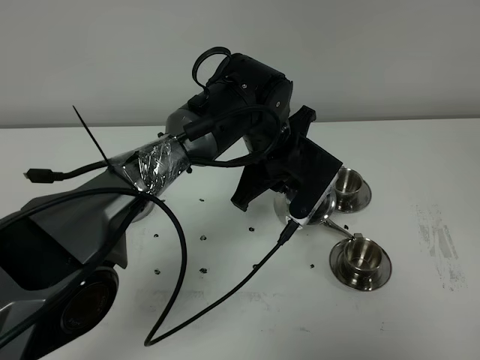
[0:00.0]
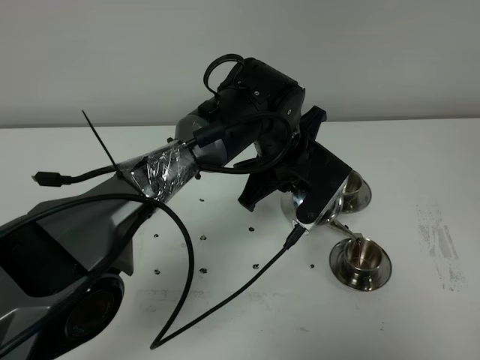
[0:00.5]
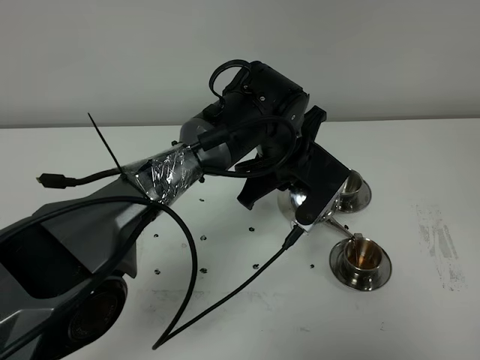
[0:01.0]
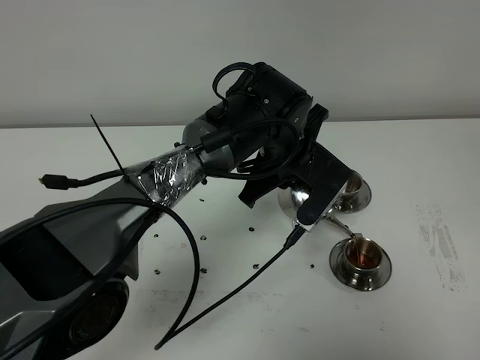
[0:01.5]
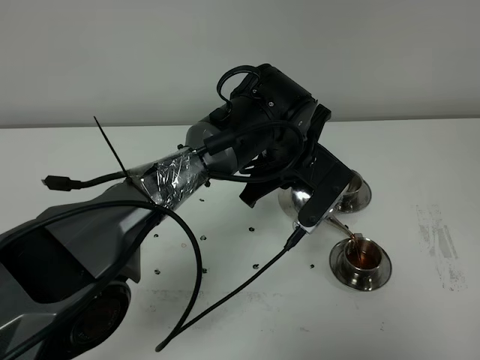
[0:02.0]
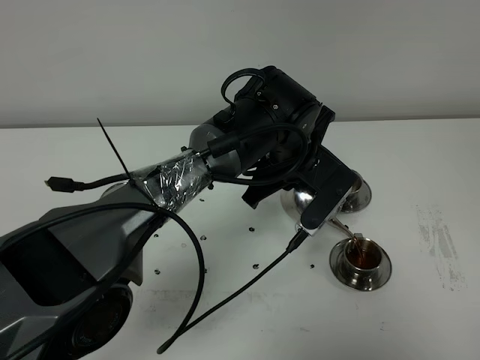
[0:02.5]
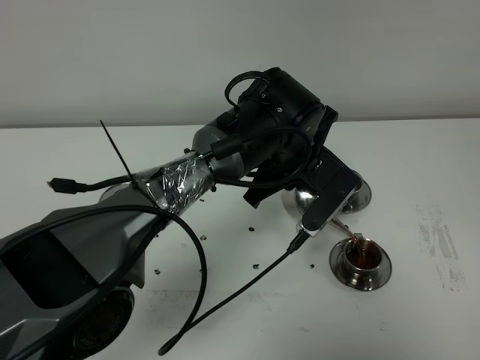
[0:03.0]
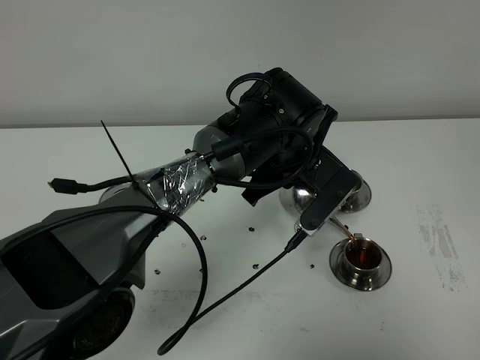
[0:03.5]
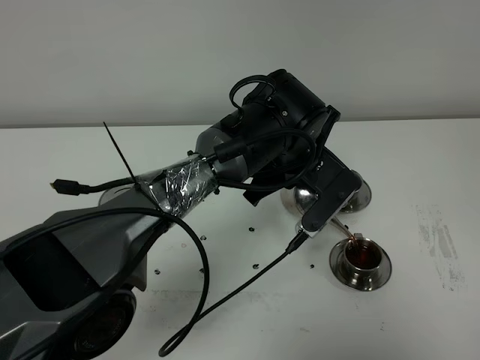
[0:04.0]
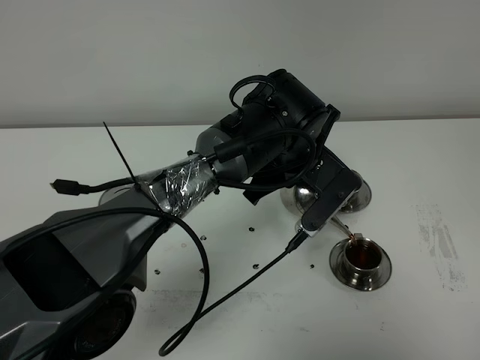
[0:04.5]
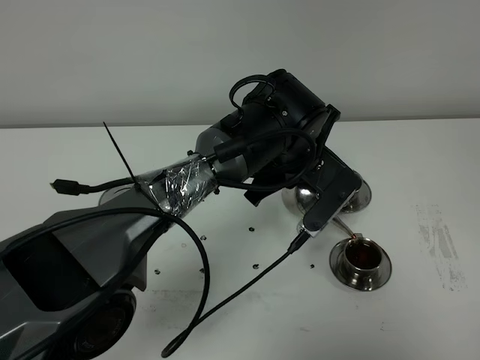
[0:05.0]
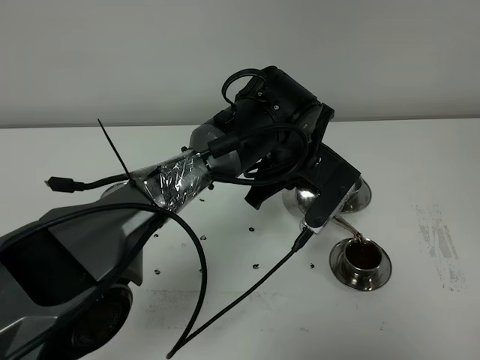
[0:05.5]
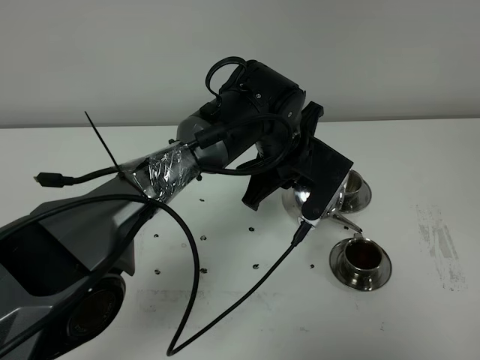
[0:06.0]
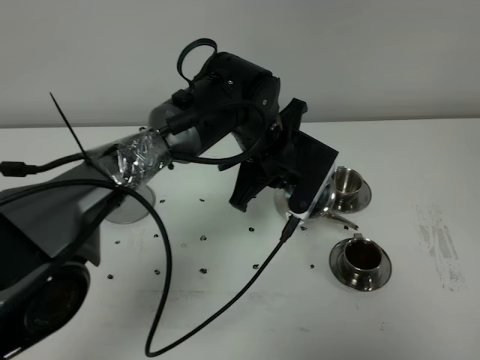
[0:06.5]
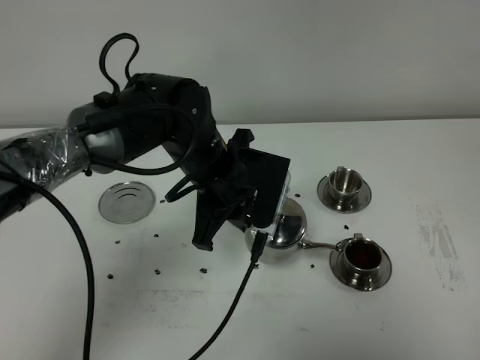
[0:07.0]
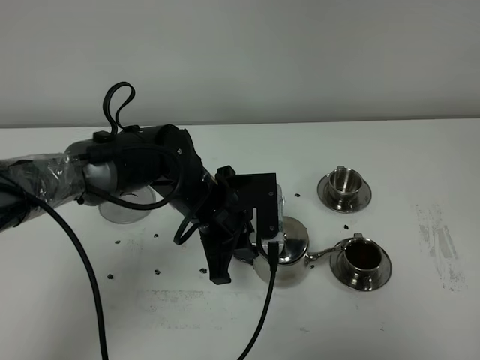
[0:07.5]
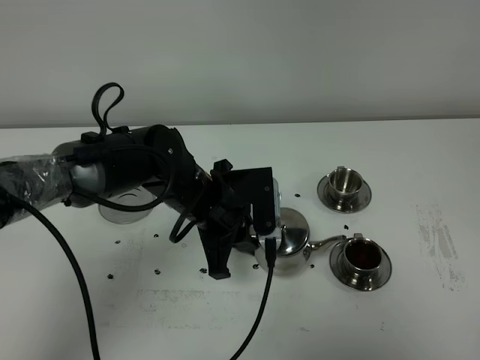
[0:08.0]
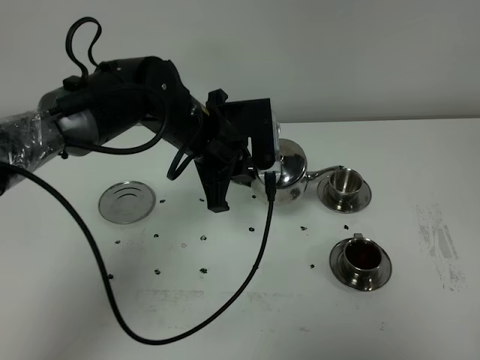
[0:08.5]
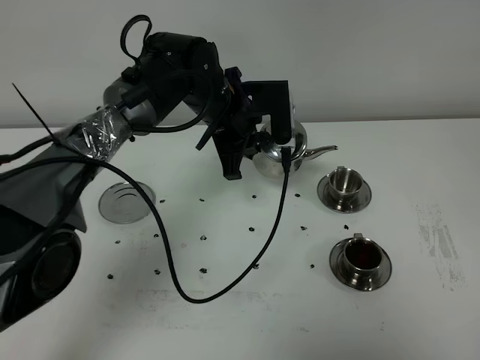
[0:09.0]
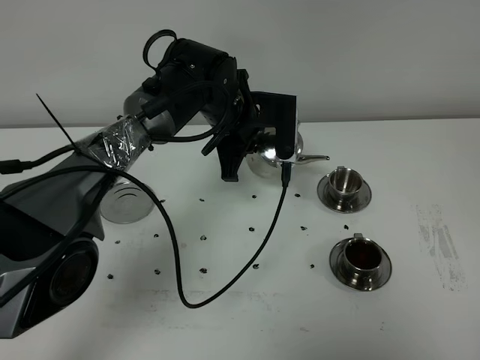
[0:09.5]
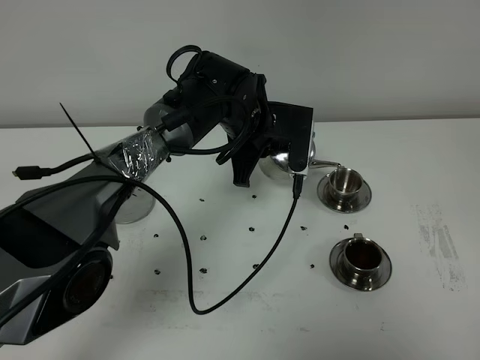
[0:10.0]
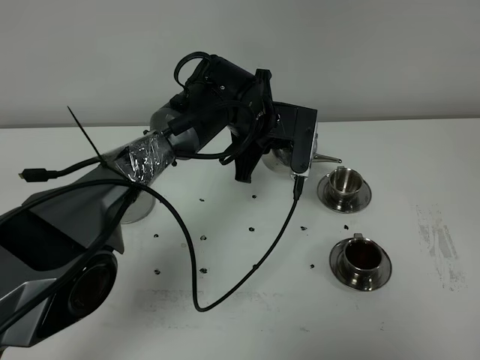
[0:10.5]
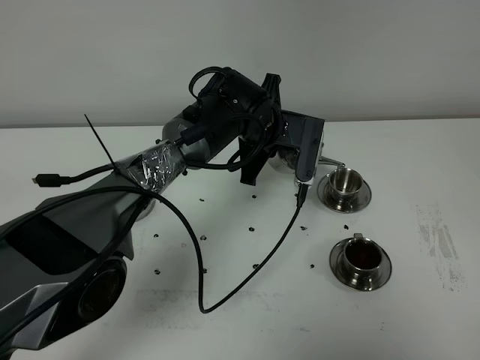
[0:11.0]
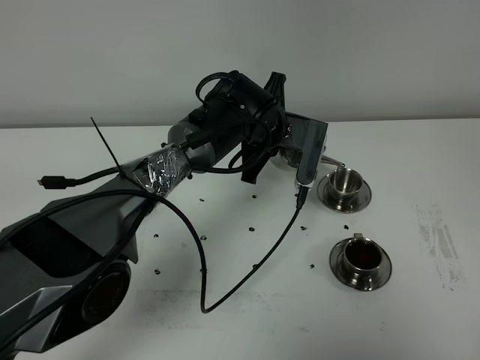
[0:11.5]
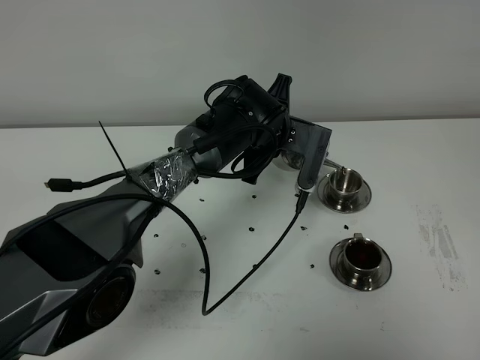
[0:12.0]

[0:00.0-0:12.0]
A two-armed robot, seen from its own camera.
Task of the whole recording: grasp the stainless steel teapot and pour the tea into the two stainless steel teacups one by one, put the stainless steel teapot back in its original place.
0:00.0 to 0:02.0: The grippers stay close to where they were, moving slightly.
0:02.0 to 0:04.0: Neither gripper changes place.
0:04.0 to 0:06.0: The grippers make only small movements.
0:06.0 to 0:08.0: The left gripper shifts approximately 10 cm to the left and backward.
0:08.0 to 0:10.0: The left gripper travels forward and to the right by approximately 10 cm.

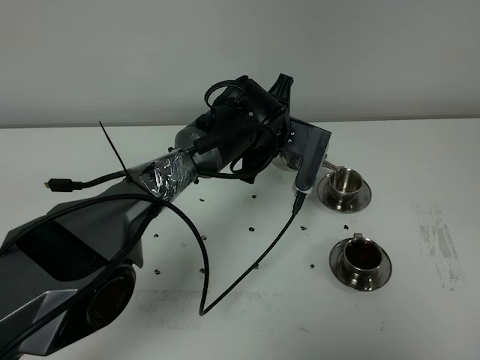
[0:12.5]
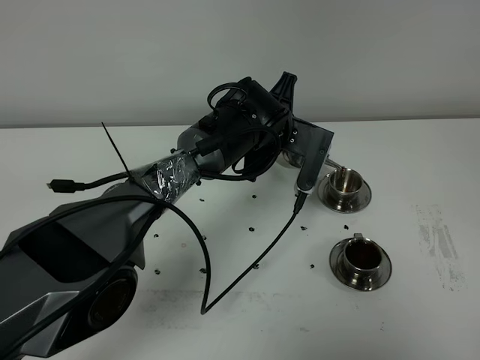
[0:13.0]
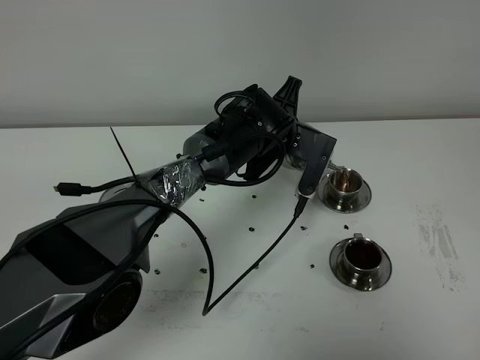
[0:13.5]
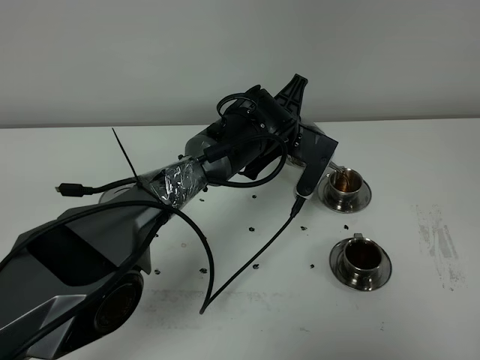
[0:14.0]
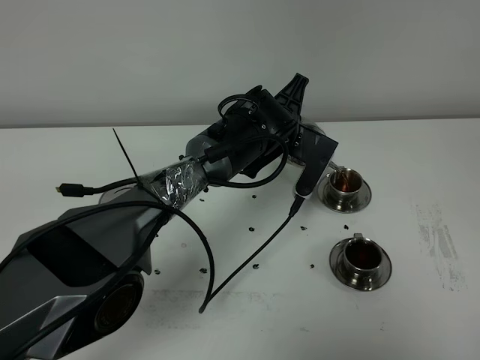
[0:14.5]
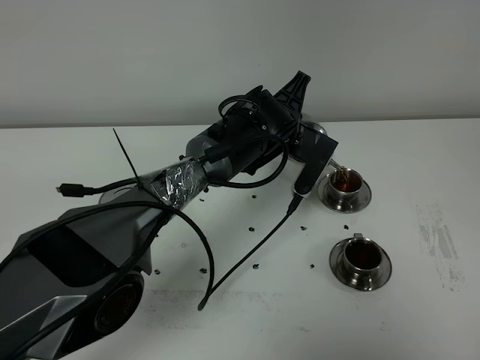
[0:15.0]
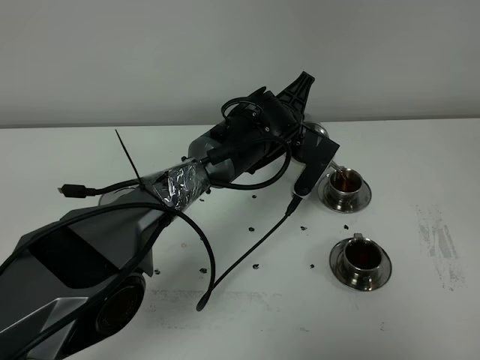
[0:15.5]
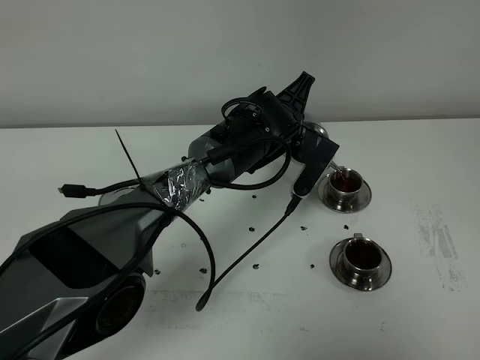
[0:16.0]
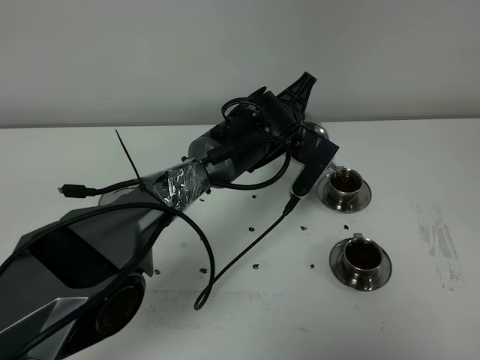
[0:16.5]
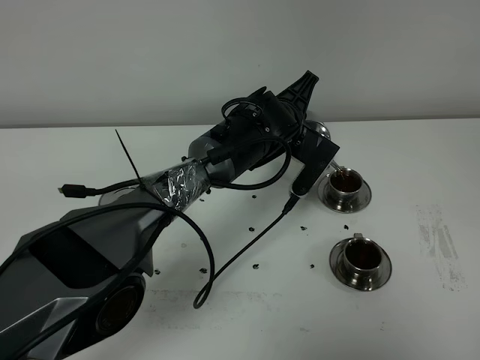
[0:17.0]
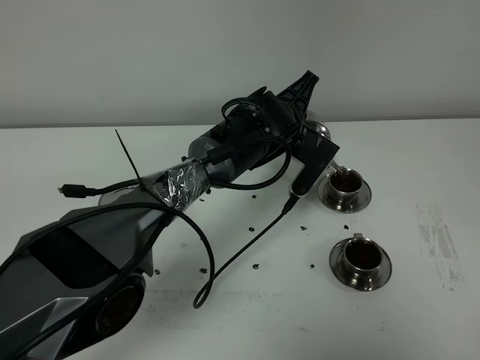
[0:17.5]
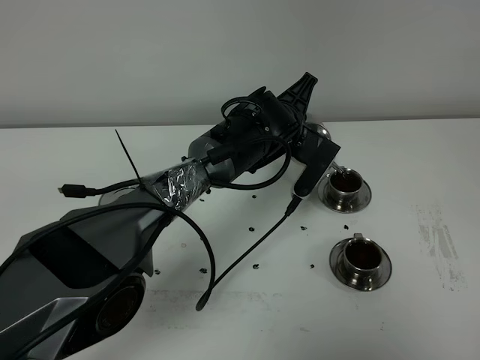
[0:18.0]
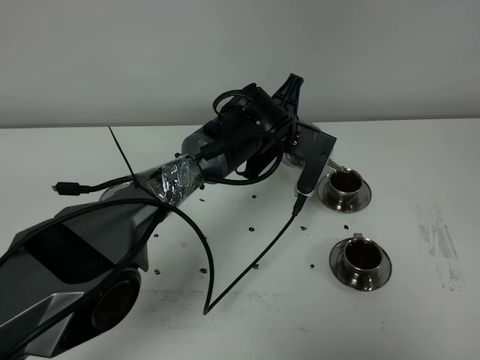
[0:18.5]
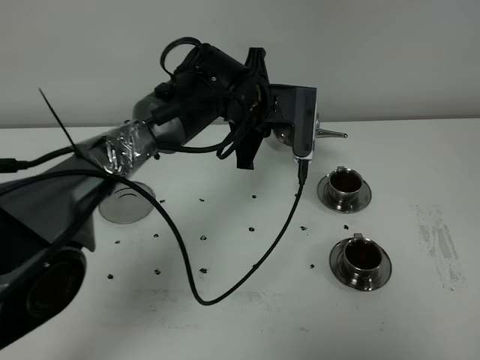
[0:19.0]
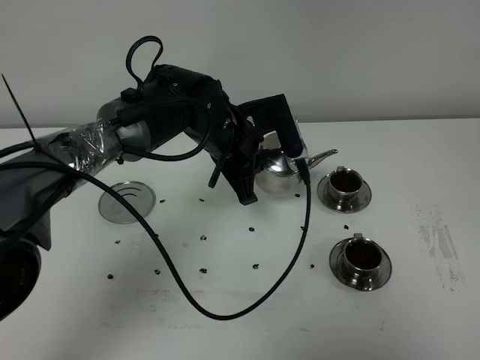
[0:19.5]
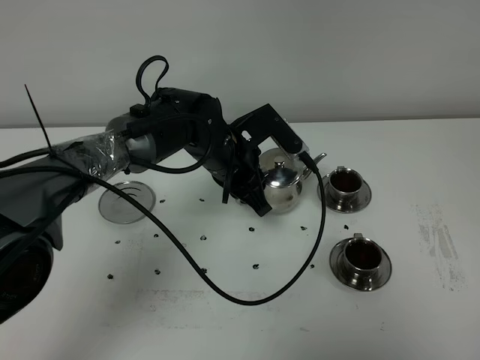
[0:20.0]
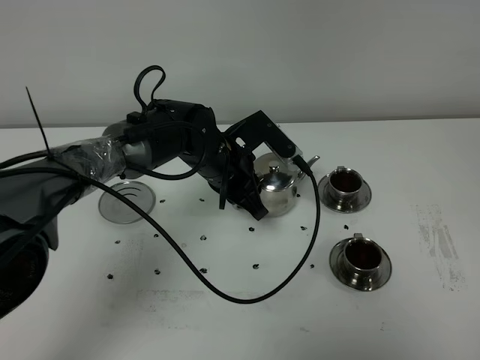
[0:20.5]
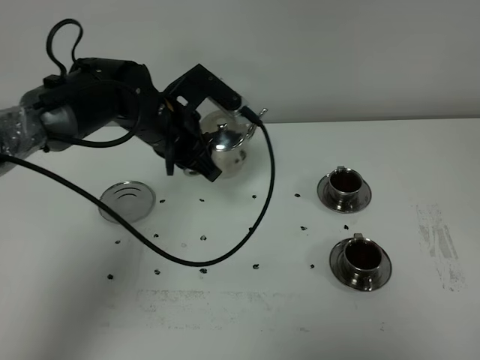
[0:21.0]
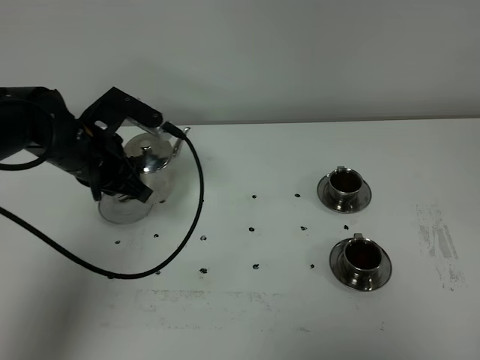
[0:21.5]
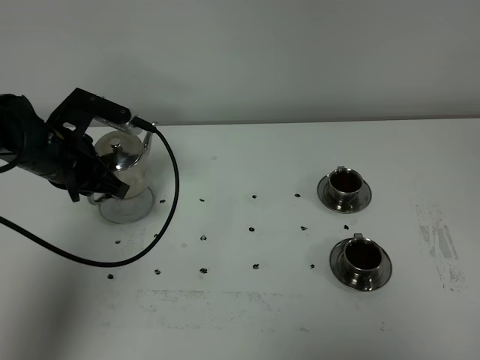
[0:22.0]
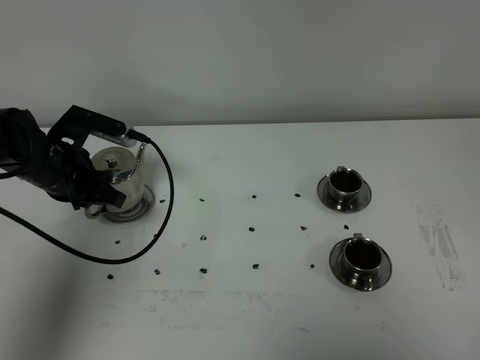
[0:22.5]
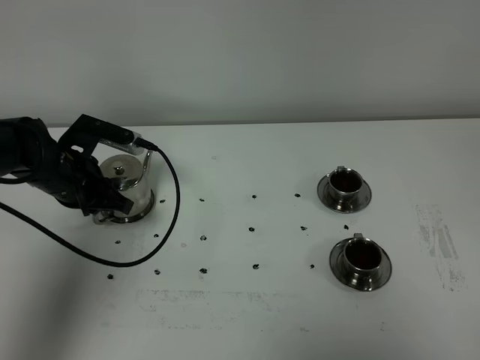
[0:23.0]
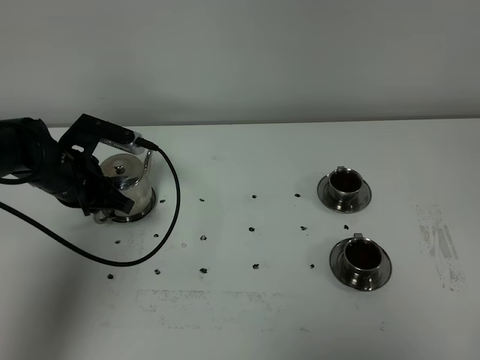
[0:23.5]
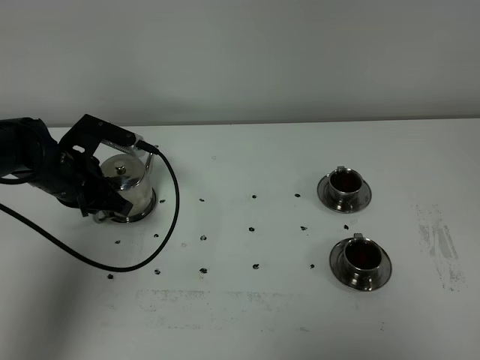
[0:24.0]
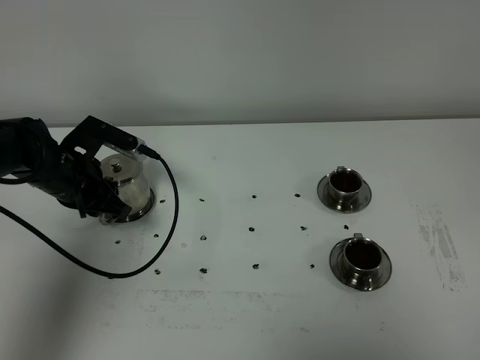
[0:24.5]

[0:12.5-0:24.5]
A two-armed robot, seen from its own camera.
Task of the whole recording: grasp the stainless steel teapot and pour the tea into the two stainless steel teacups one by one, put the stainless steel teapot back in its original place.
Step, 0:12.5 to 0:18.5: Pour tea into the teacup with the left gripper.
0:12.5 to 0:18.5: The grippers make only small movements.
0:18.5 to 0:20.5: The left gripper heads to the left, covering some 10 cm.
0:20.5 to 0:22.5: The left gripper travels to the left by about 20 cm.
0:22.5 to 0:24.5: The grippers make only small movements.

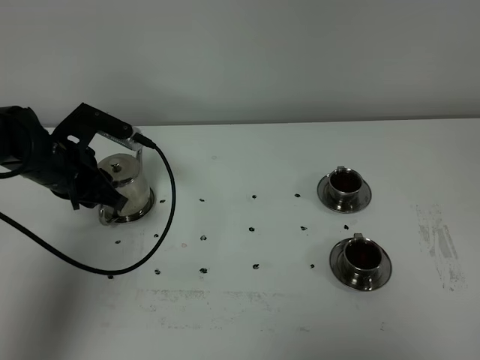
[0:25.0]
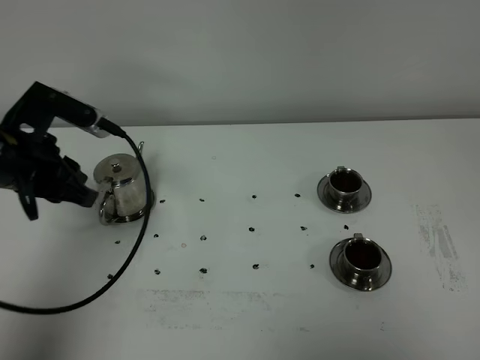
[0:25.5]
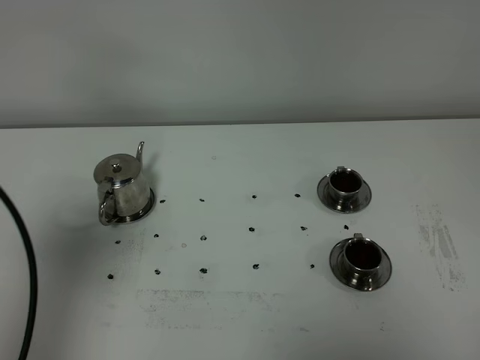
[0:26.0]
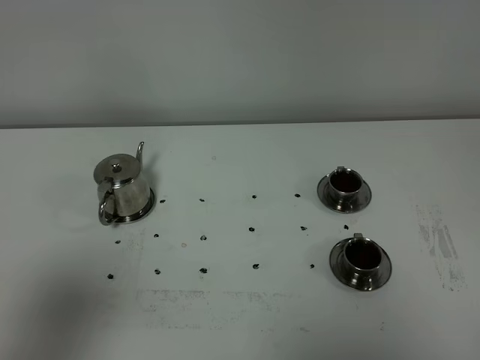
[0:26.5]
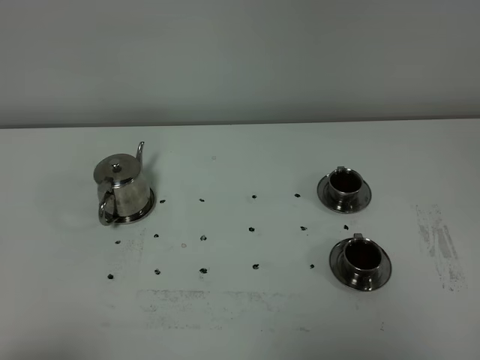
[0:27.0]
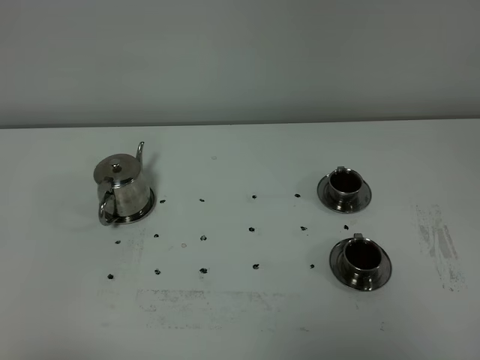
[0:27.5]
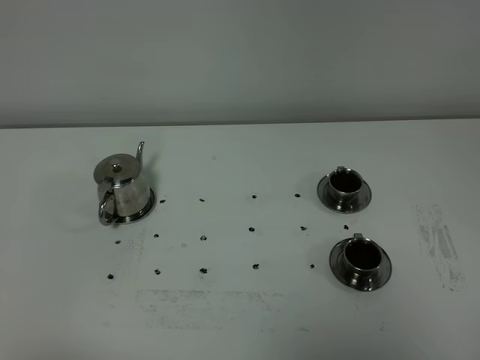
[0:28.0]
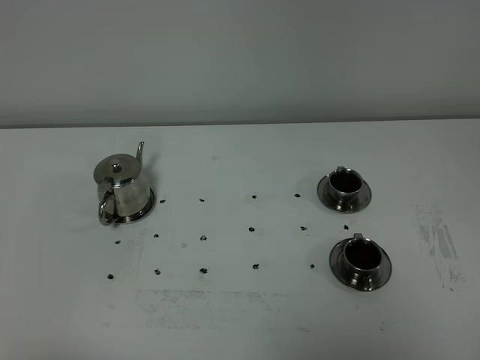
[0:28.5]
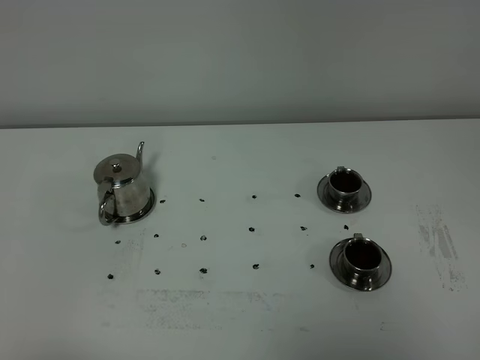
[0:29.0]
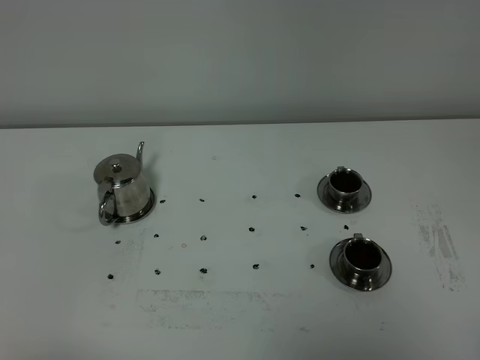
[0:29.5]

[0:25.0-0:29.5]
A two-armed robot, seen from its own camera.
Task of the whole recording: grasp the stainless steel teapot and pour the tea into the two stainless steel teacups one by one, put the stainless steel teapot back in its original place.
0:25.0 to 0:27.0: The left gripper goes approximately 40 cm backward.
